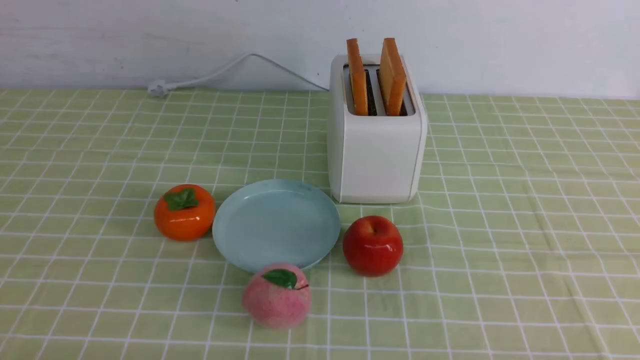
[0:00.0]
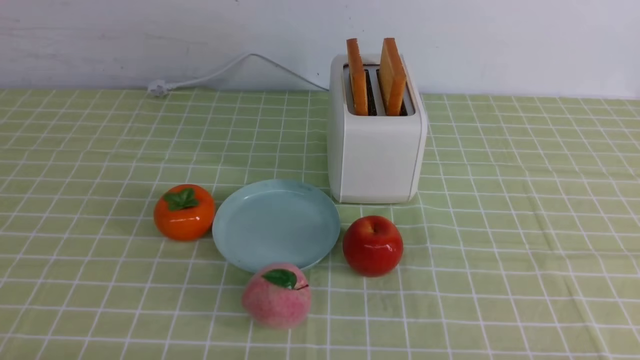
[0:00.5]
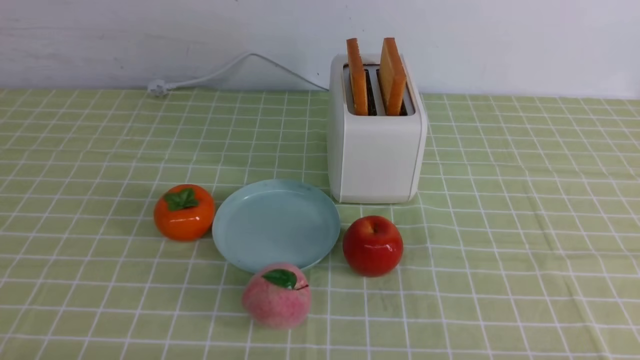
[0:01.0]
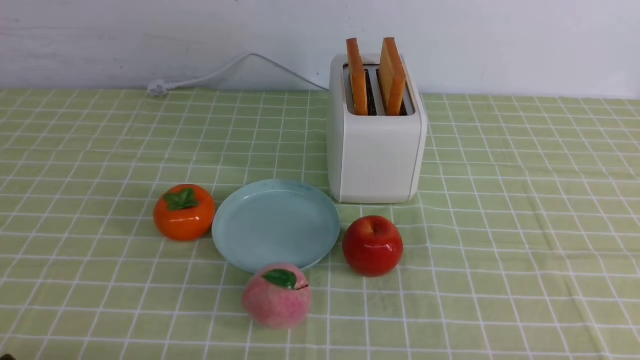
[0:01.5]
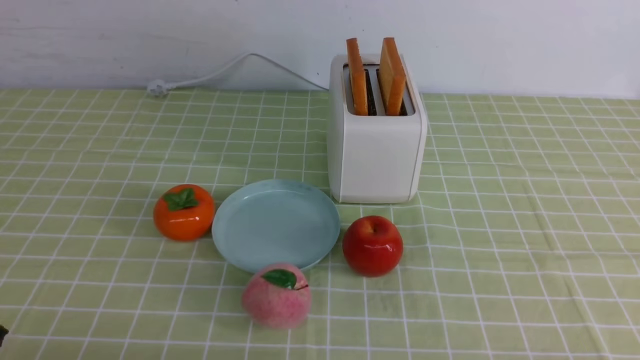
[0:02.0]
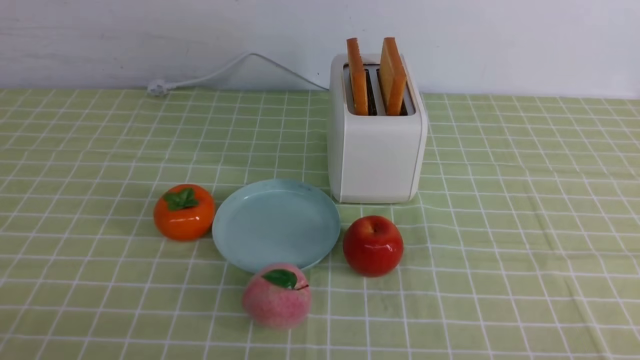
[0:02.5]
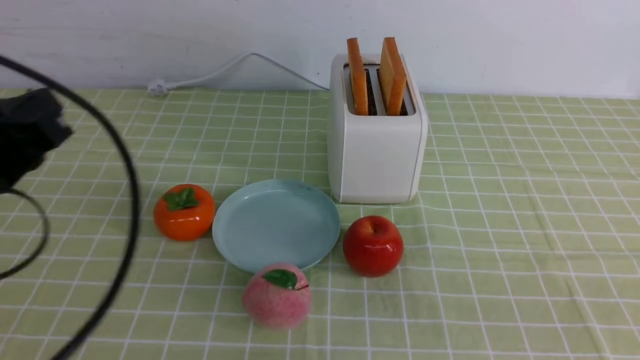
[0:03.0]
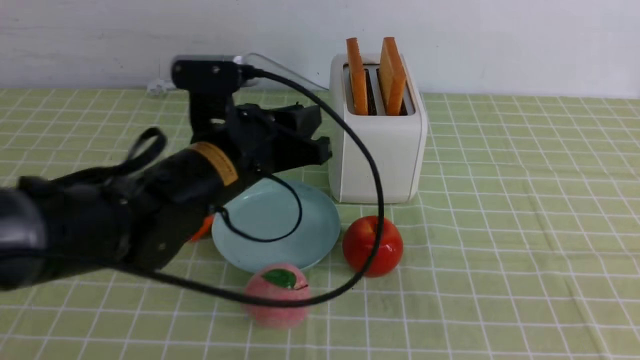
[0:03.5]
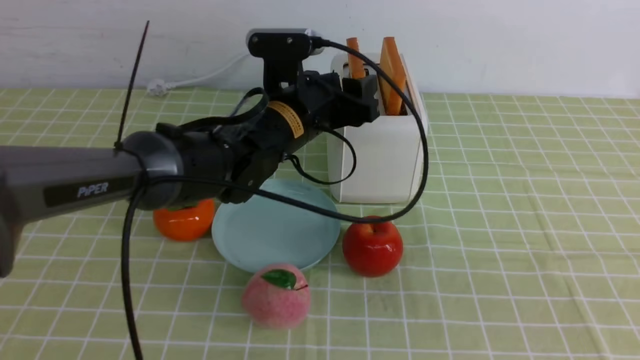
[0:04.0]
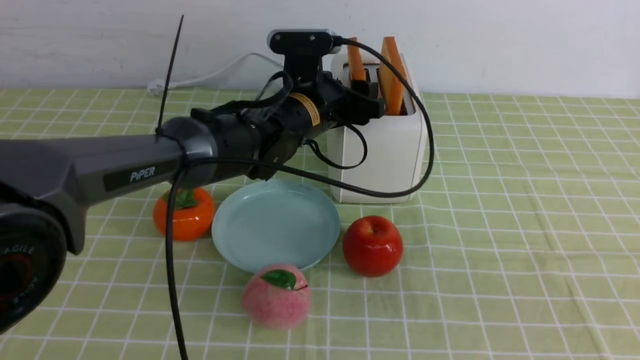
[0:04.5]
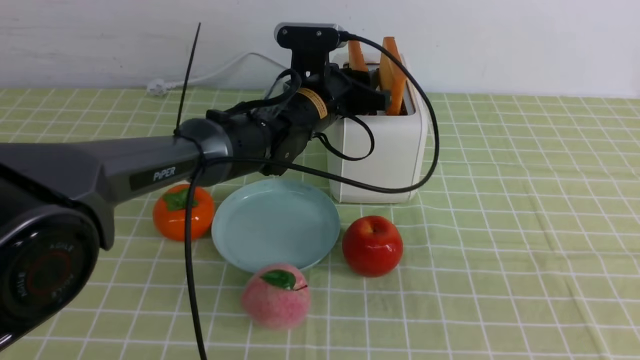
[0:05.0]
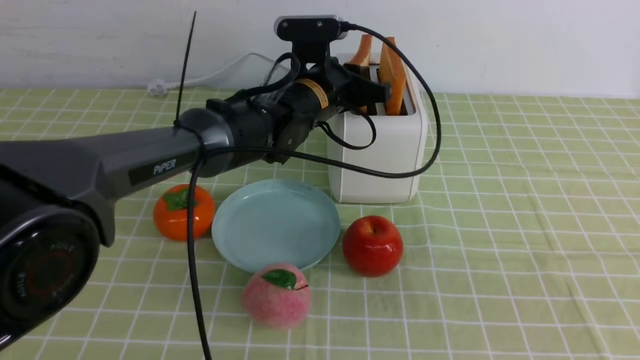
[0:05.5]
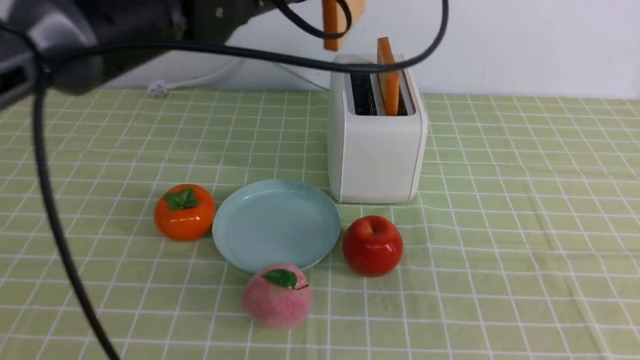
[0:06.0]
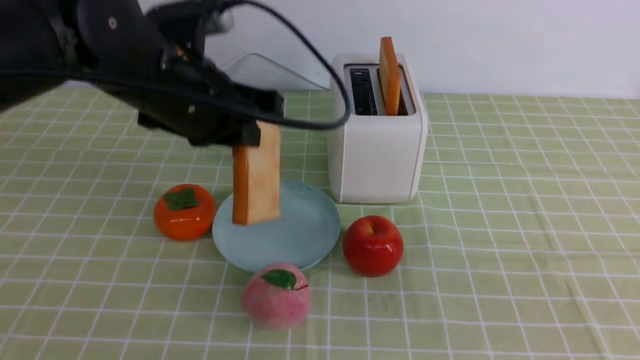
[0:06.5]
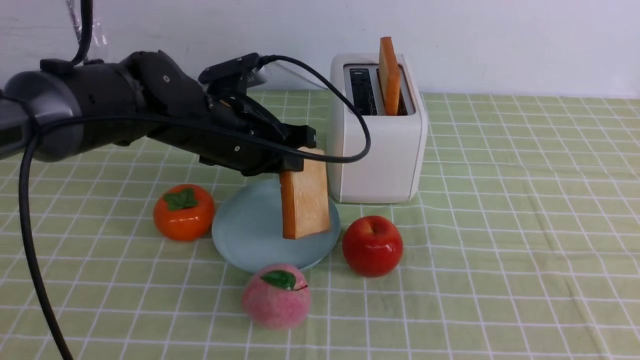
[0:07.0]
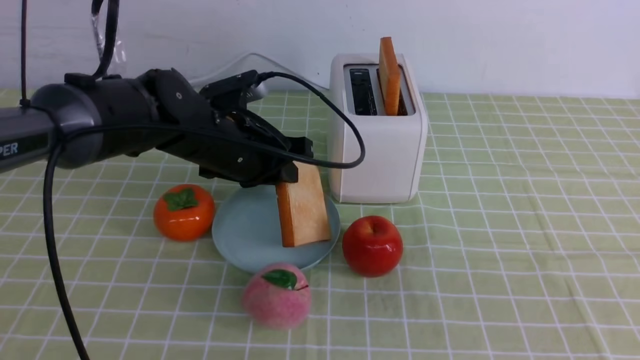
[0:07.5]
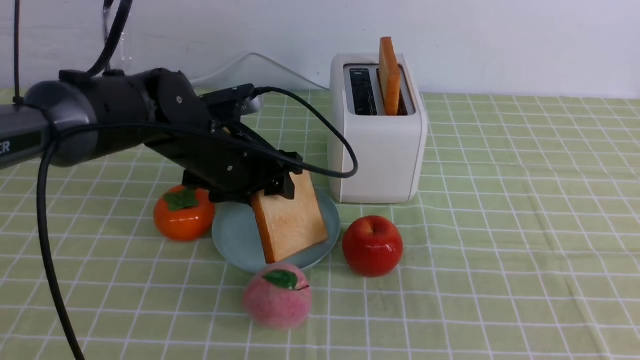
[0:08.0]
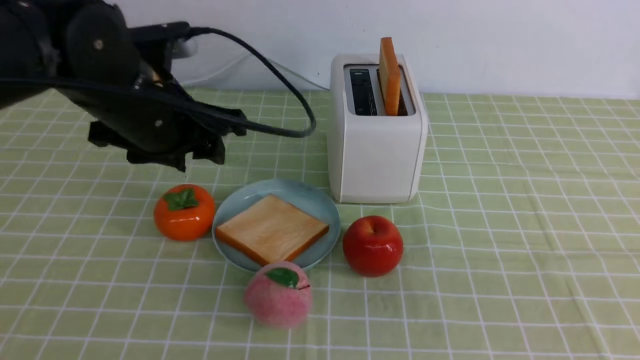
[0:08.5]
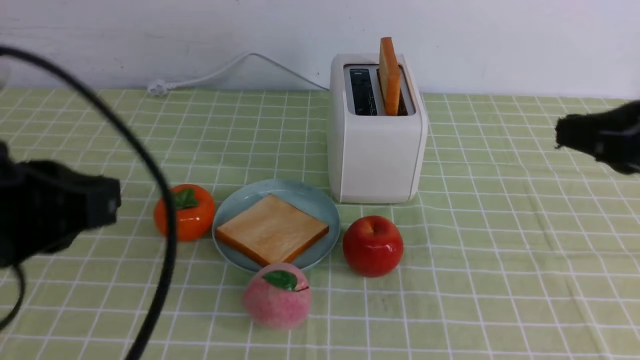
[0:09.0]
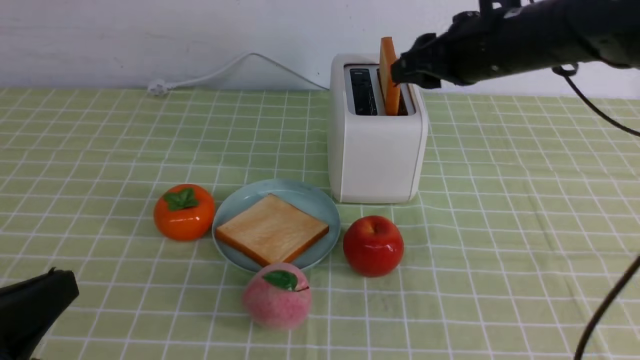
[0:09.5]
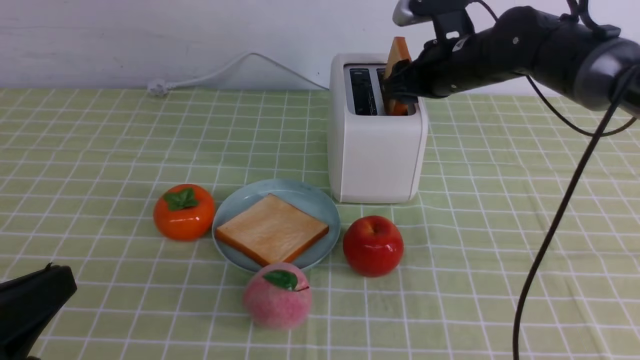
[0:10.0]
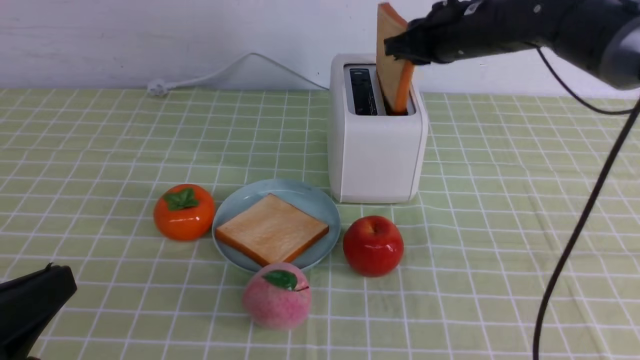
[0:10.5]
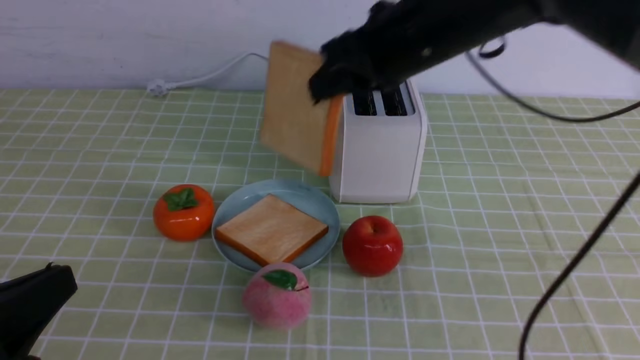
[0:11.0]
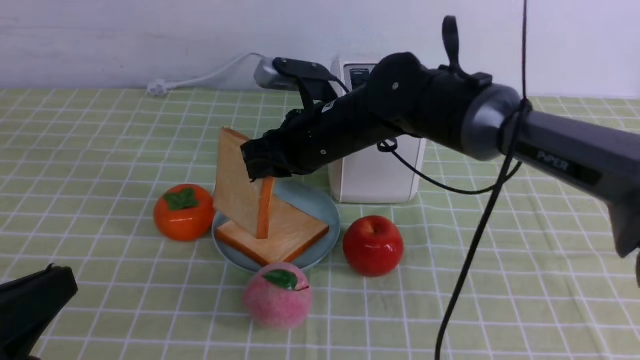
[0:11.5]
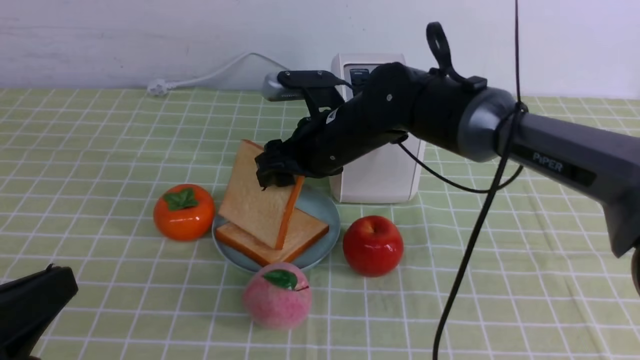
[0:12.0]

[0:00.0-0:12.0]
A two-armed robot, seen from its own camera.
Task of the whole recording: take toasted bread from bread machine on green coffee tablecloth place on plate.
Step, 0:00.0 to 0:05.5: use the left arm to take out a slice of bread.
Step, 0:06.0 to 0:08.5: use the left arm to put a slice of bread into the empty plate.
Step, 0:09.0 to 0:10.5: use the right arm to take out a slice of bread.
0:02.0 to 0:04.0: The left gripper is displaced forward and to the right by about 40 cm, and opens its fingers. Meanwhile the right gripper shifts approximately 15 cm upward, and closes up.
0:04.0 to 0:06.0: The left gripper shifts some 15 cm upward, and closes.
0:06.0 to 0:08.0: The left gripper shifts approximately 15 cm downward, and opens.
0:08.0 to 0:10.0: The left gripper is displaced backward and to the left by some 30 cm, and closes, while the right gripper moves forward, some 40 cm, and opens up.
0:10.0 to 0:12.0: The right gripper travels to the left and backward by some 15 cm, and closes and opens again.

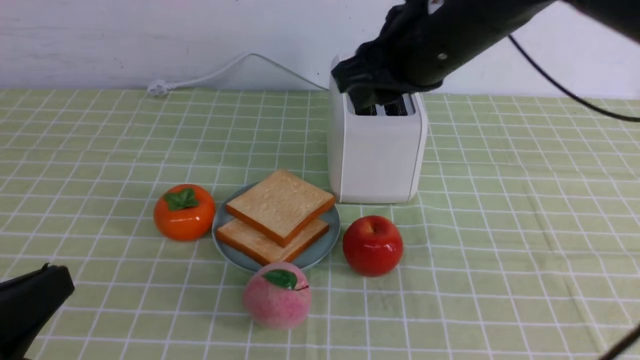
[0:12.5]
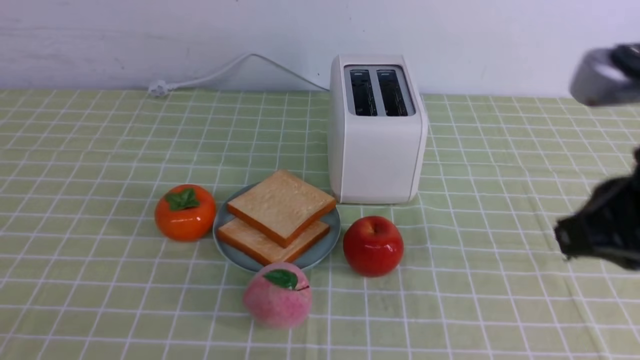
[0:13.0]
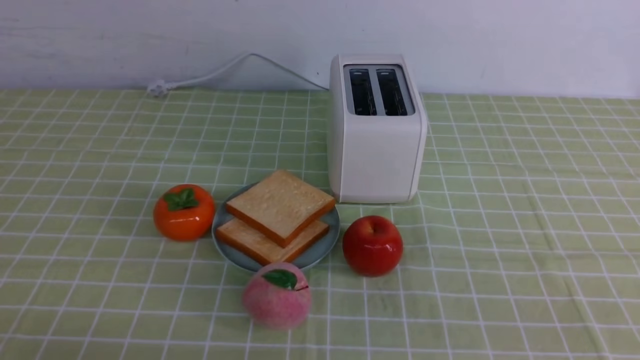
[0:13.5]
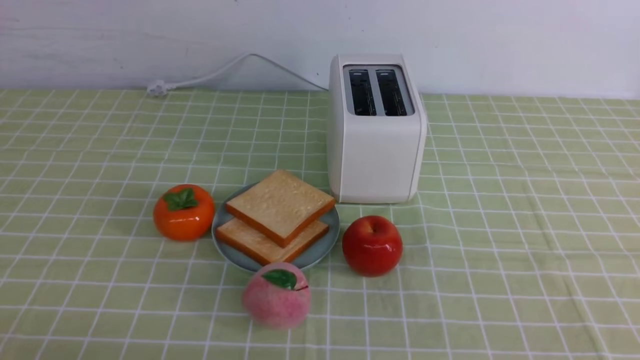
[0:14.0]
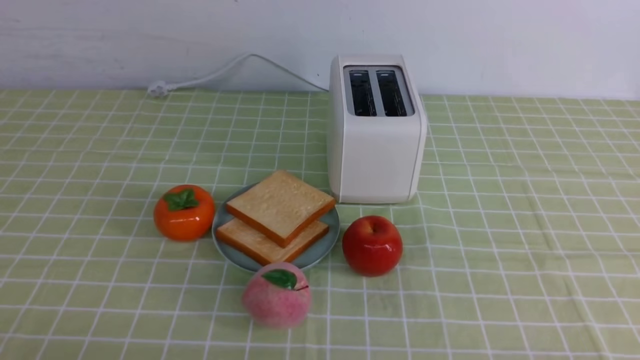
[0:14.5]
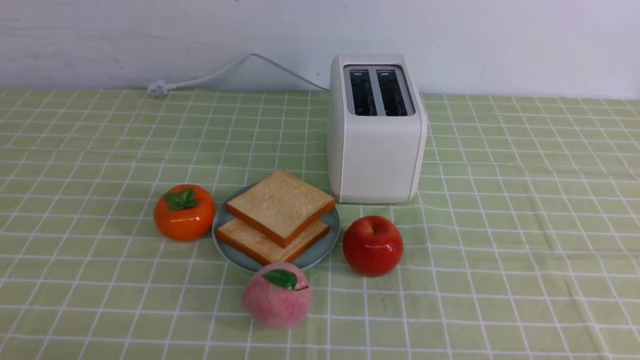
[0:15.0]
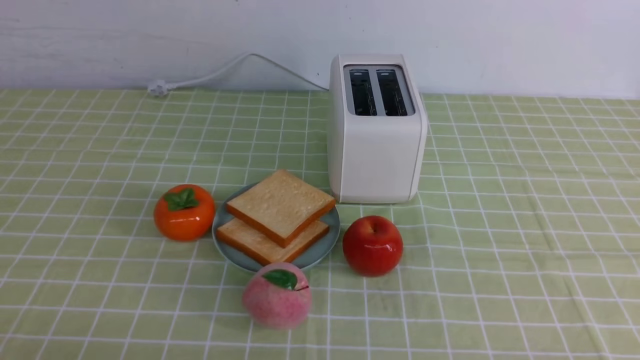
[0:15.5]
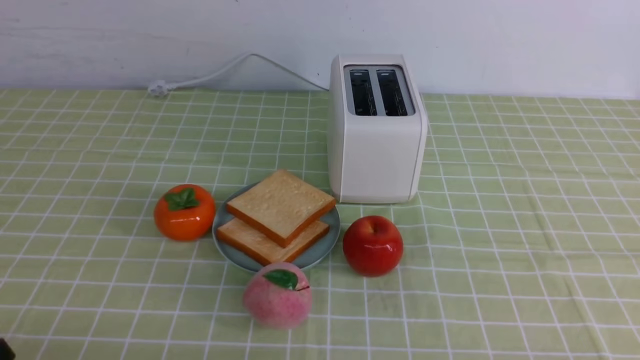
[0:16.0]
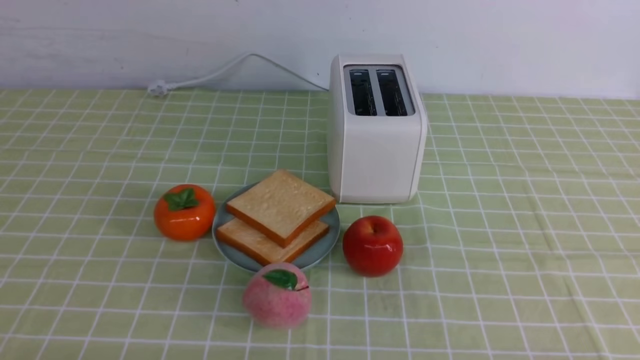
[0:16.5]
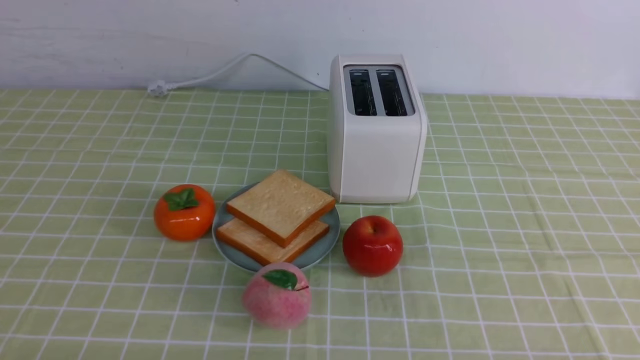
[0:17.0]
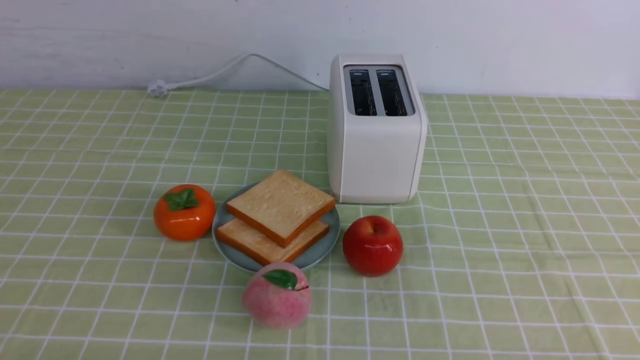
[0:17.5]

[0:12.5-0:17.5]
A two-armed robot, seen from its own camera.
Task of the whole recording: take toasted bread from bread machine on green coffee tablecloth place on plate.
0:12.5 to 0:15.0: The right gripper shifts approximately 40 cm backward, downward and to the right, and closes its fingers. The left gripper shifts some 5 cm backward.

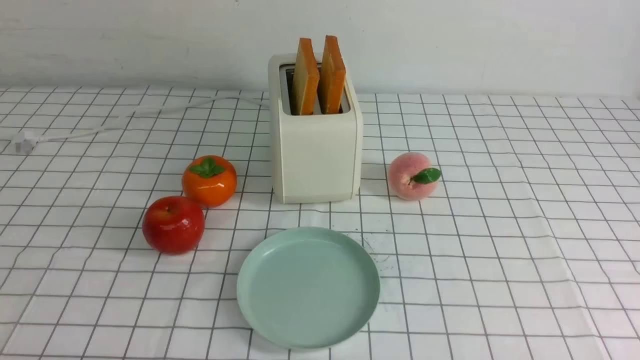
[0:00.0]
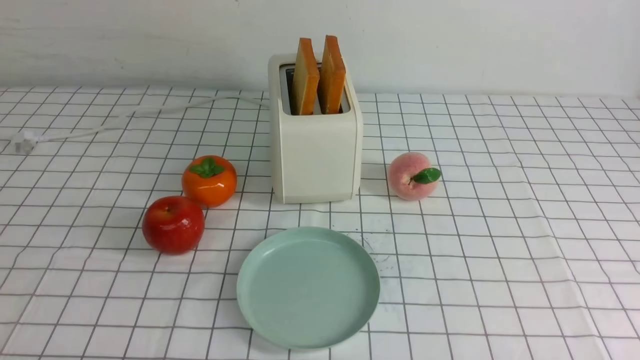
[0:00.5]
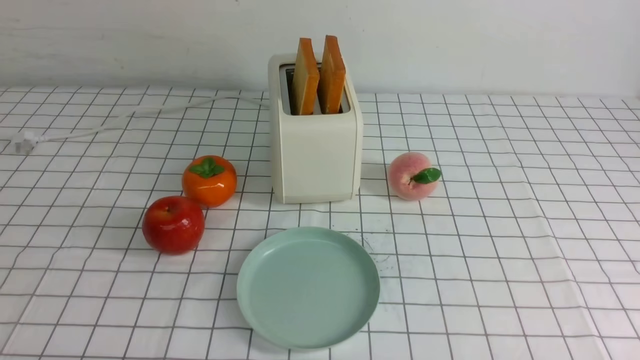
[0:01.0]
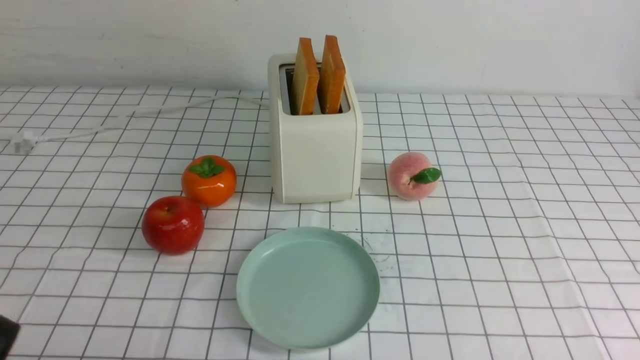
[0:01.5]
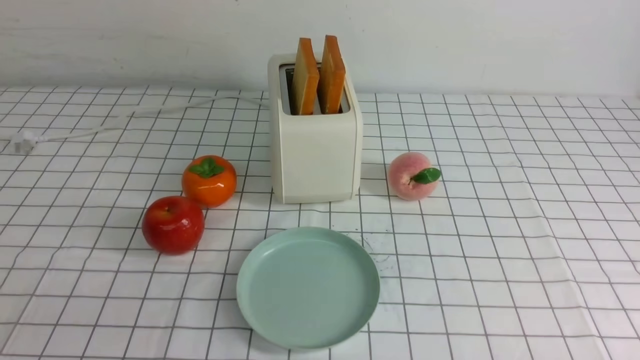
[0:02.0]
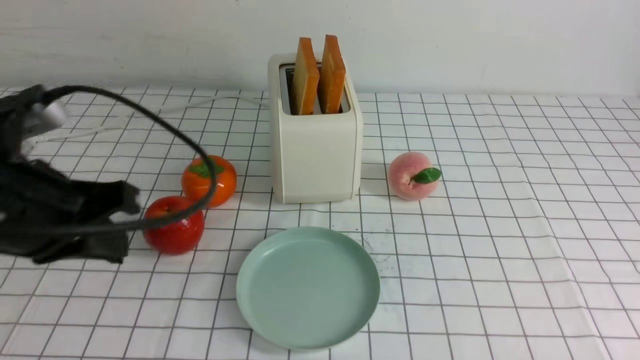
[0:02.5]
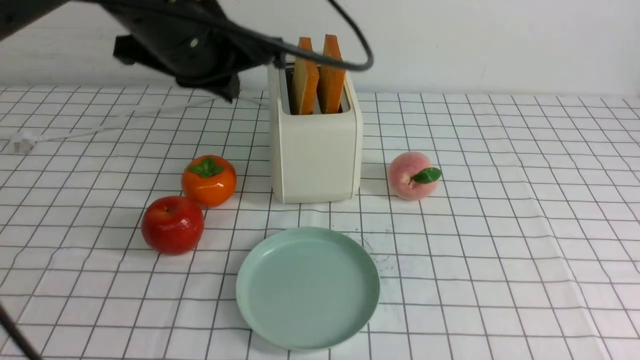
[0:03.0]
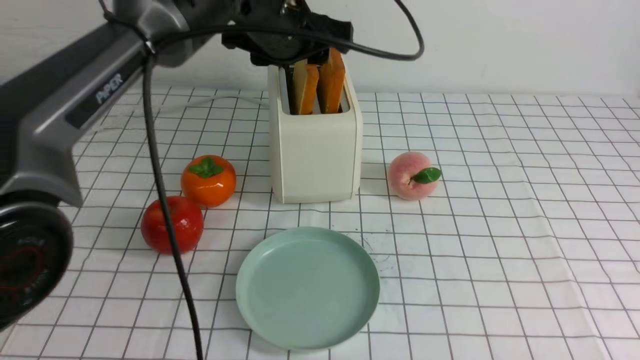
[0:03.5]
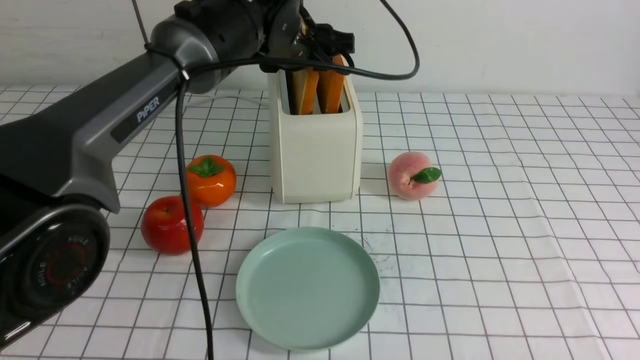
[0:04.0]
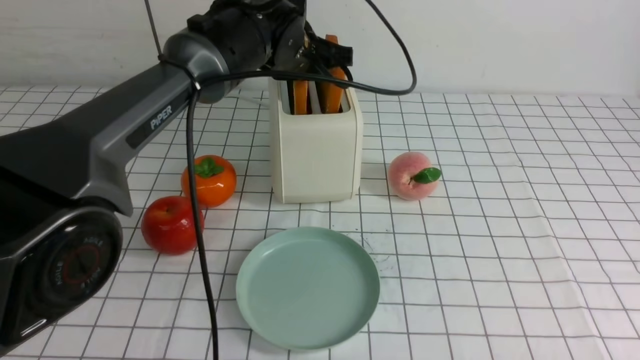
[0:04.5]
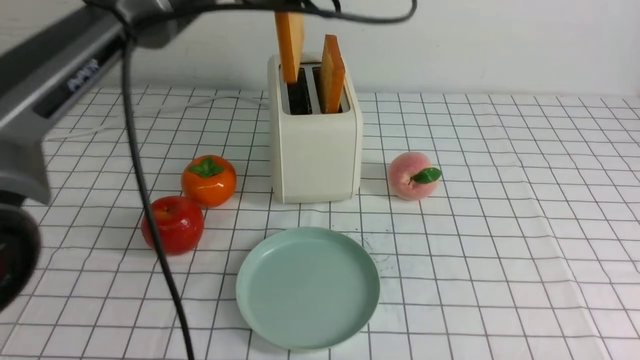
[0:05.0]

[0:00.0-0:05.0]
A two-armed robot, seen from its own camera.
Task of the whole recording: take toasted bread from bread machine on white checkered table place on plate.
Step, 0:00.0 to 0:04.5: use the left arm to take out a slice of bread.
0:00.0 to 0:02.5: The left gripper goes some 25 cm upward and forward, and closes.
0:02.5 to 0:05.0: The left gripper is displaced forward, to the right and upward by about 25 cm, and opens and closes again.
